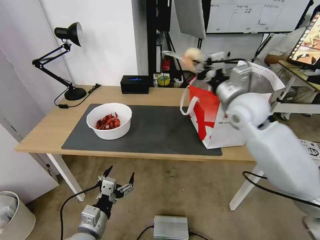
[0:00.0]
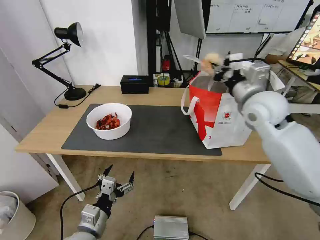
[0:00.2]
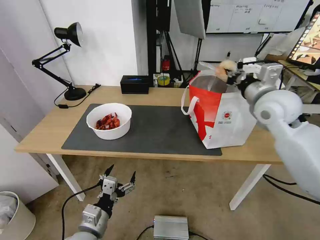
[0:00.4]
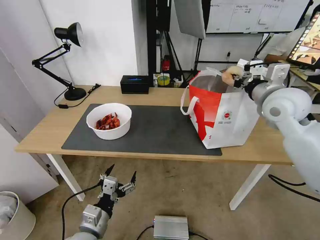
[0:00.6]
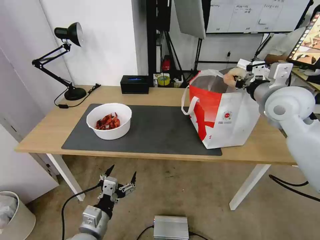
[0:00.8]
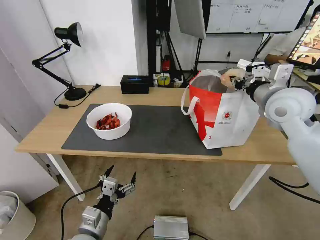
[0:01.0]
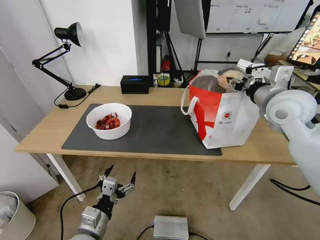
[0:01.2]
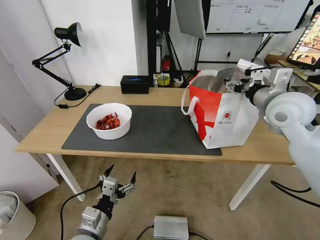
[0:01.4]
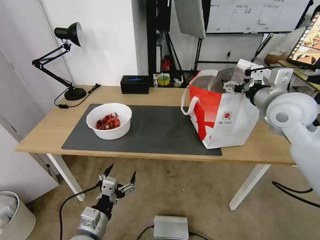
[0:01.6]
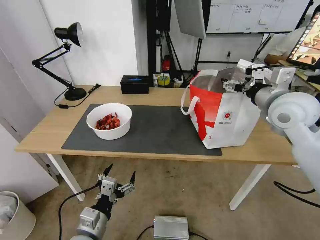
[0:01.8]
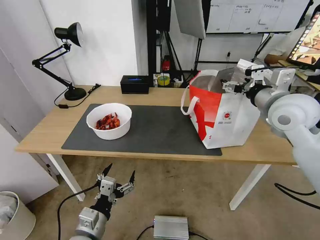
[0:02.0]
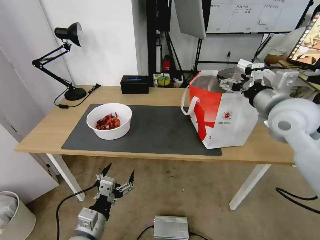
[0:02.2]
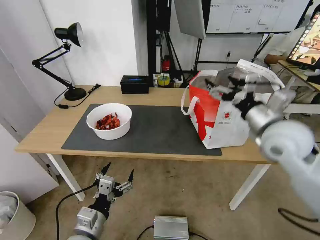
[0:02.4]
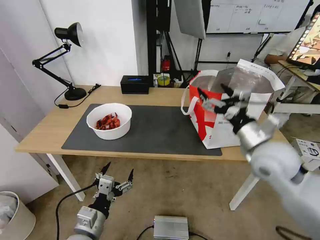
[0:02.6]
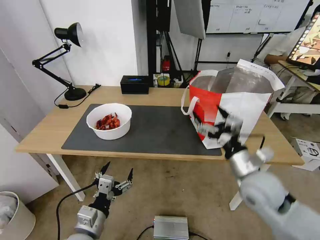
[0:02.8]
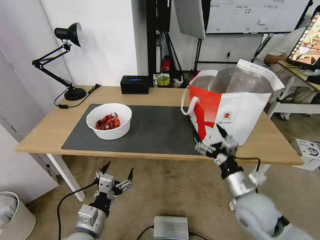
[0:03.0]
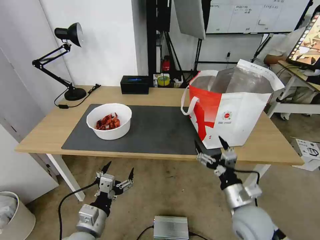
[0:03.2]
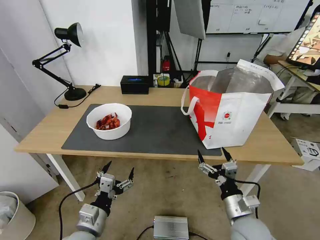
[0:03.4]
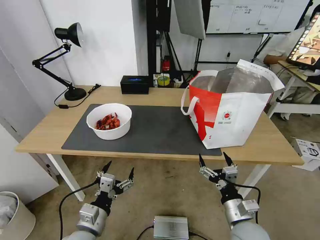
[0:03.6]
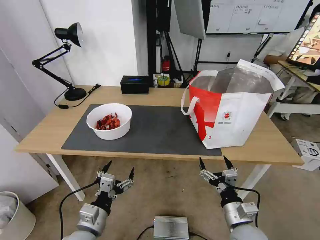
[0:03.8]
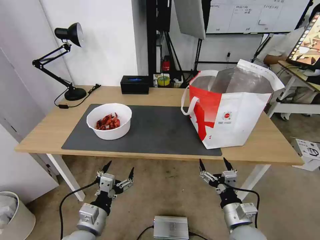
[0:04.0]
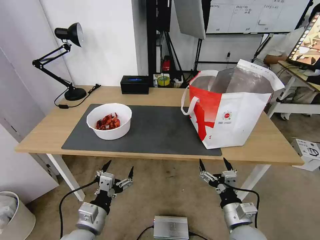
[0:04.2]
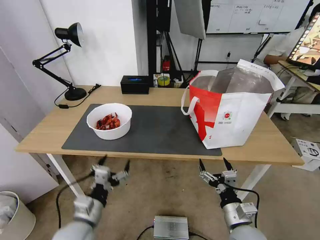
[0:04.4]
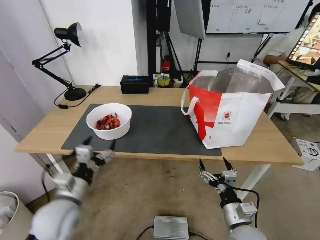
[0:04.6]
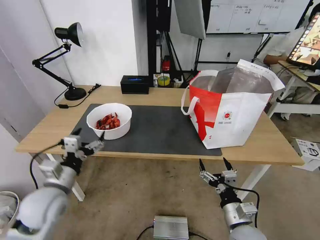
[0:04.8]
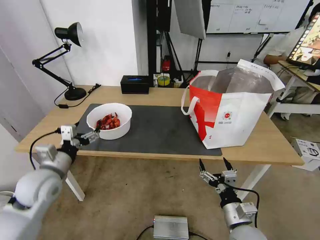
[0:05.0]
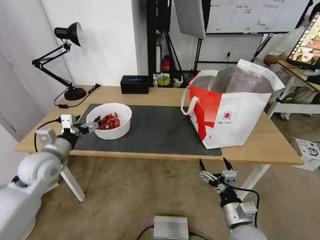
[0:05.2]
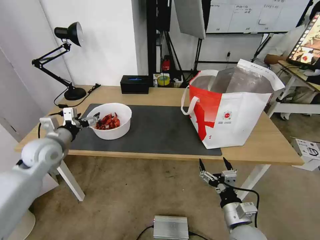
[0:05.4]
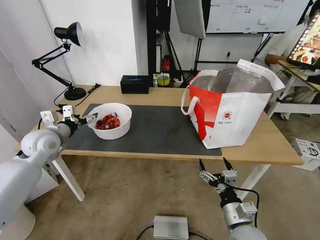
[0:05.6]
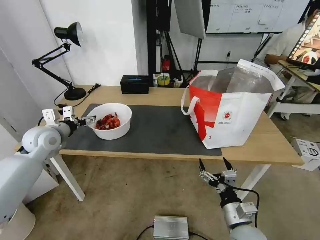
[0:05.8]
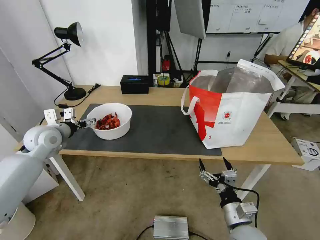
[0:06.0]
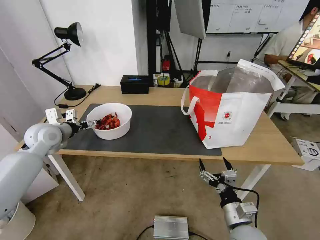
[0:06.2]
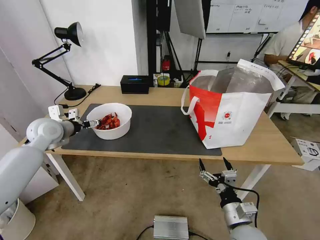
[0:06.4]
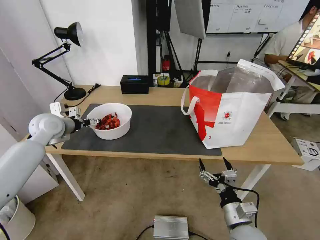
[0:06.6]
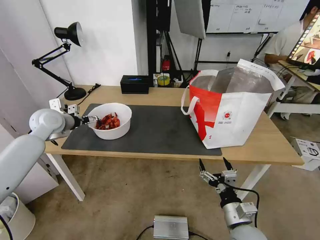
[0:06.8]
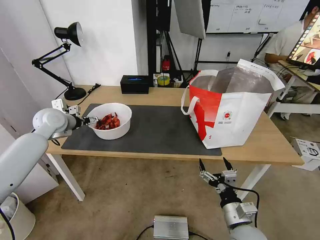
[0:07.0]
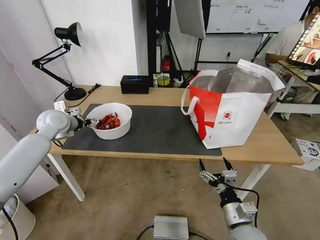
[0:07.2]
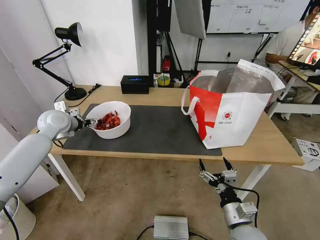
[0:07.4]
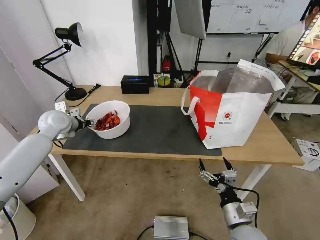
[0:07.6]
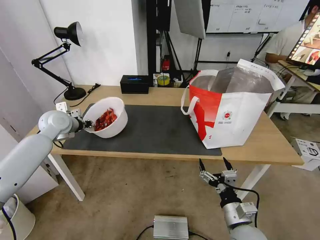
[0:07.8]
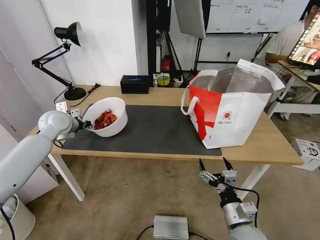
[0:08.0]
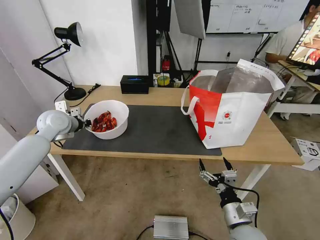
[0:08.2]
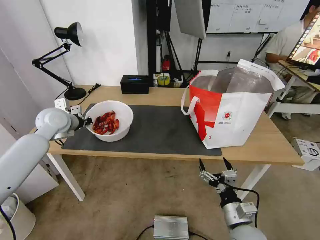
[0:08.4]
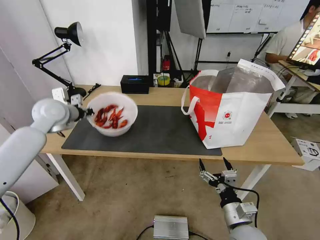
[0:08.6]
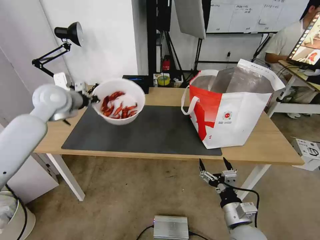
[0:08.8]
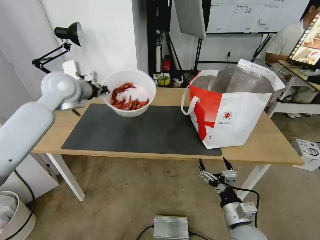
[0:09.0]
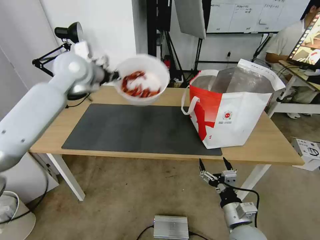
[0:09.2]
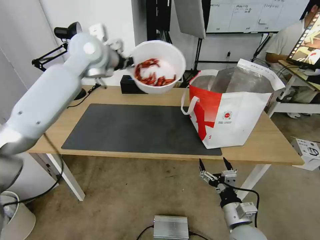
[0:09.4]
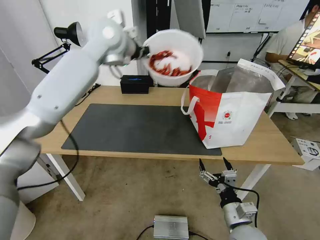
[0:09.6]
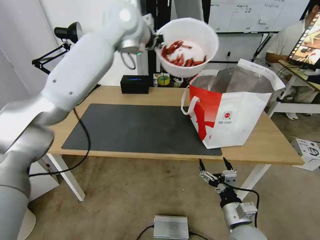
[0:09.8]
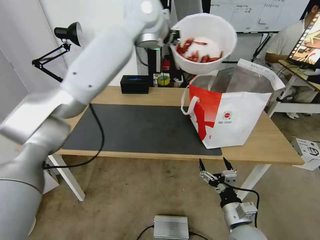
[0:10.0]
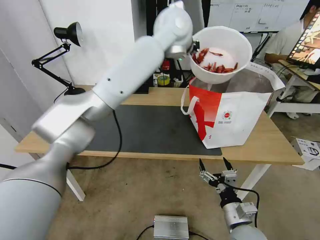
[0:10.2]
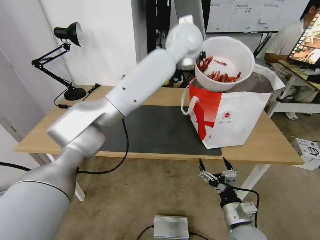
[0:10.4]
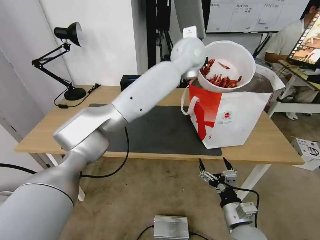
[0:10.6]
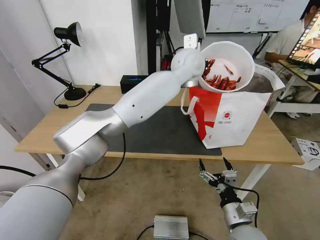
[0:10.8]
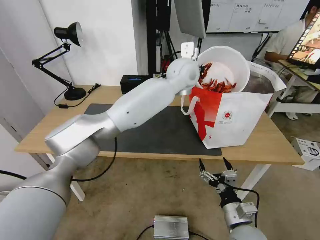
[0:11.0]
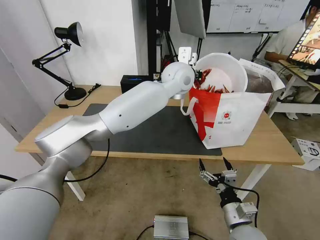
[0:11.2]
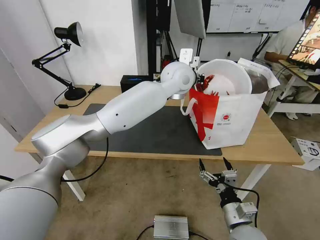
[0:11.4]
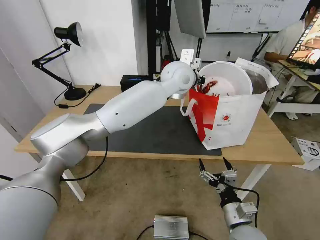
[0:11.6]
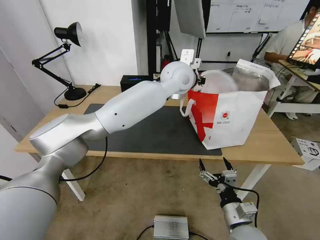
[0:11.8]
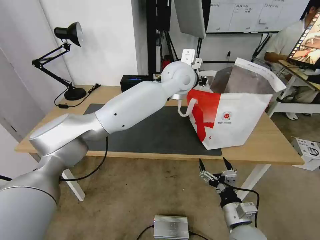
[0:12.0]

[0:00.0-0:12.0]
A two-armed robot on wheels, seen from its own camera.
Task of the whole recording: Pick up the trash from the table and place it into the takeout bag.
0.0 to 1.6 s: The right gripper travels to the right by about 10 cm, and opens.
1.6 to 3.0 s: The right gripper is displaced downward and backward by about 20 cm.
3.0 to 4.4 s: The right gripper moves downward and backward, roughly 15 cm.
4.4 to 6.0 s: The left gripper travels forward, to the left and upward by approximately 30 cm.
6.0 to 7.6 s: The left gripper goes roughly 5 cm forward, and closes.
7.6 to 9.0 s: The left gripper heads upward and to the right, covering about 15 cm, and closes up.
9.0 to 10.4 s: The left gripper travels to the right by approximately 35 cm.
10.4 to 12.0 s: The left gripper shifts approximately 10 cm downward, and opens its fingers.

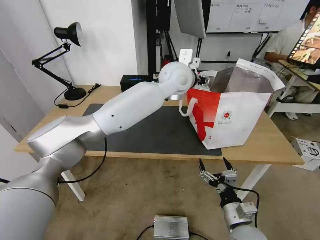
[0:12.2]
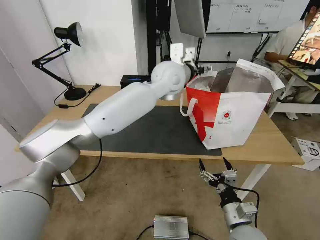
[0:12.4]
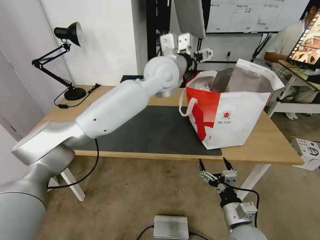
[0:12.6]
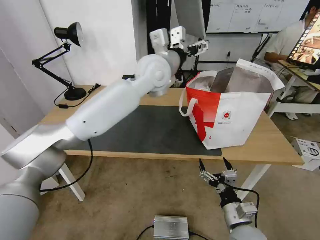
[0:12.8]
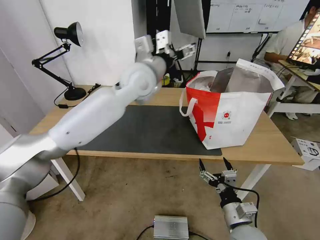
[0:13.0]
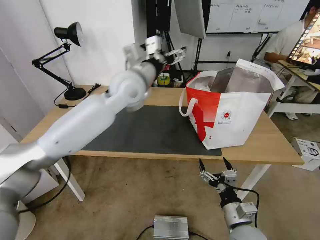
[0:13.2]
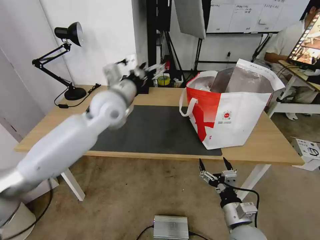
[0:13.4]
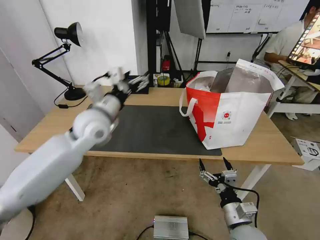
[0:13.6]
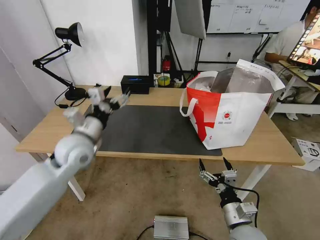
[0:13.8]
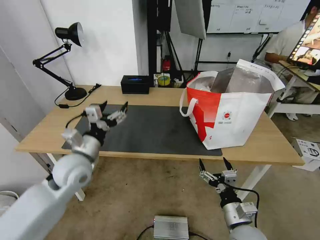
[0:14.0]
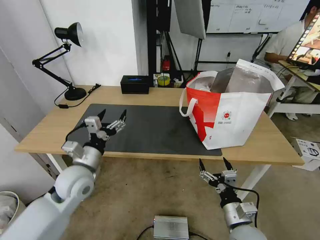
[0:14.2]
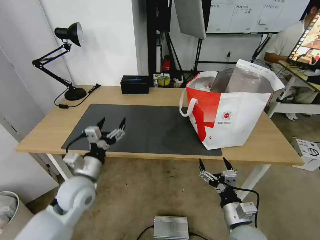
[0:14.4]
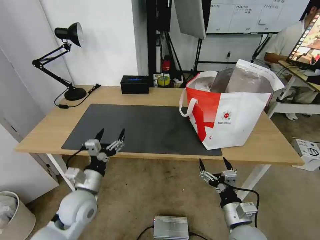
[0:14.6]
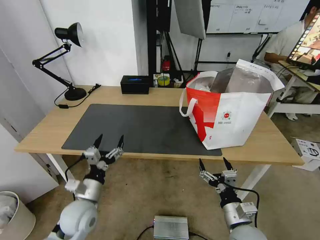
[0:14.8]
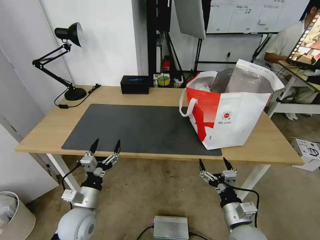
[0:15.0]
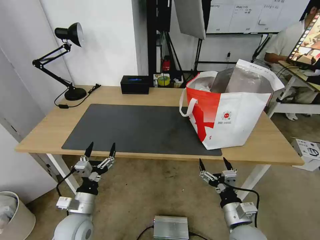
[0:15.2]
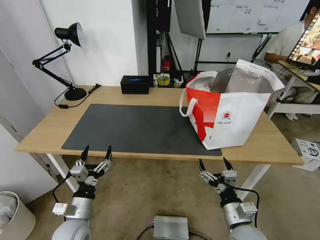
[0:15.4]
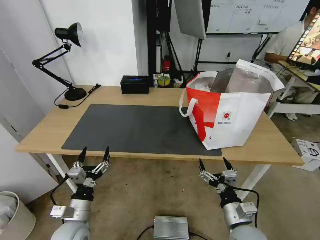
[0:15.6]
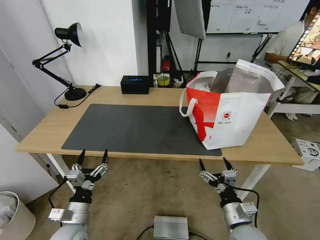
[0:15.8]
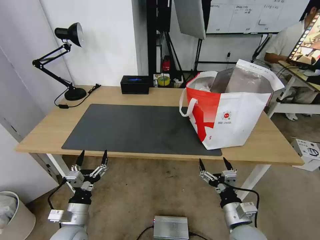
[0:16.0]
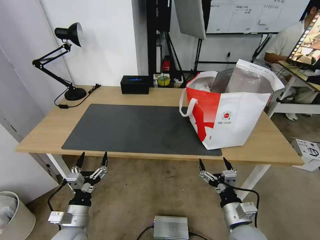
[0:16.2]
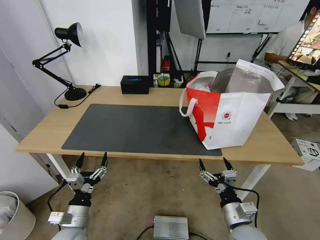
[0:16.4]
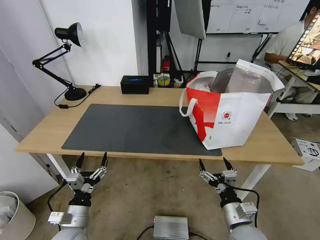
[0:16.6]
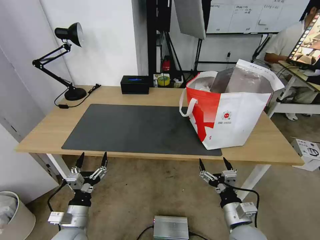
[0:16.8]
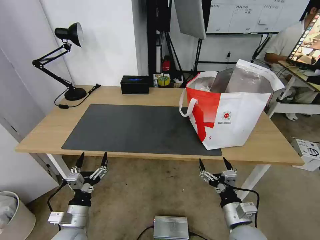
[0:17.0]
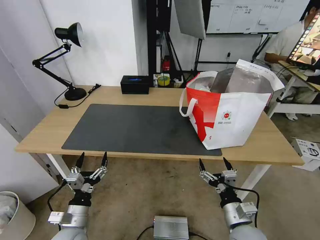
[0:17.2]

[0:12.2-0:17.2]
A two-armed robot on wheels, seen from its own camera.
Task of the whole recording: Pick up the trash from the table and place it into the takeout bag.
12.2 to 13.8 s: The left gripper travels to the left, backward and downward by approximately 35 cm.
13.8 to 15.6 s: The left gripper heads downward and backward, covering about 25 cm.
15.6 to 17.2 s: The grippers stay close to where they were, moving slightly.

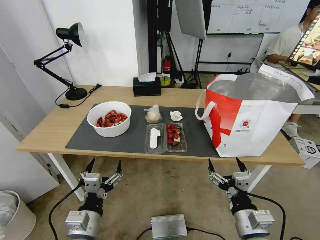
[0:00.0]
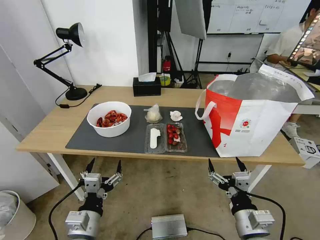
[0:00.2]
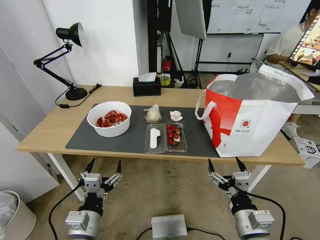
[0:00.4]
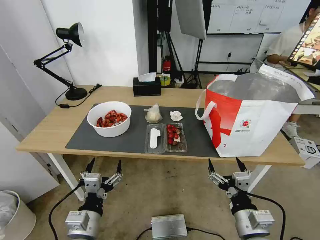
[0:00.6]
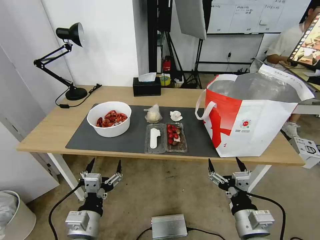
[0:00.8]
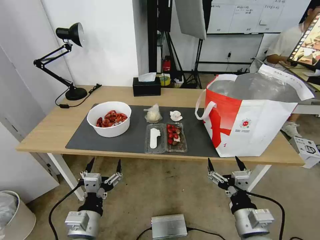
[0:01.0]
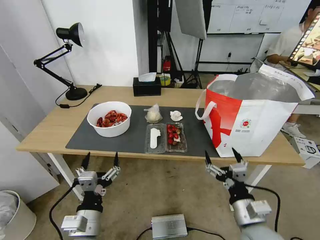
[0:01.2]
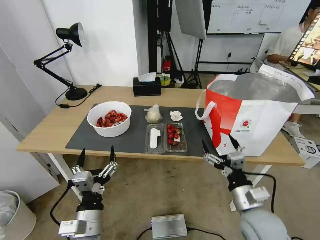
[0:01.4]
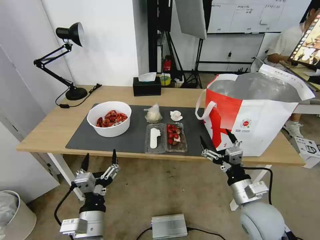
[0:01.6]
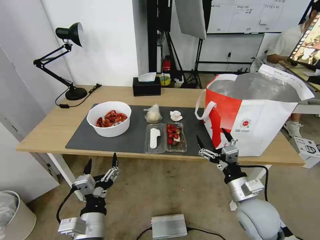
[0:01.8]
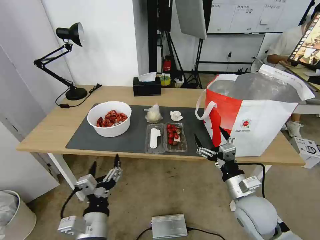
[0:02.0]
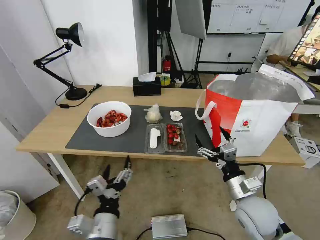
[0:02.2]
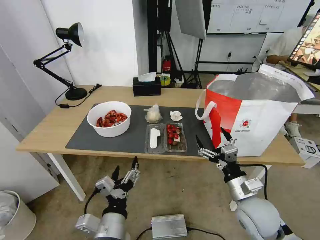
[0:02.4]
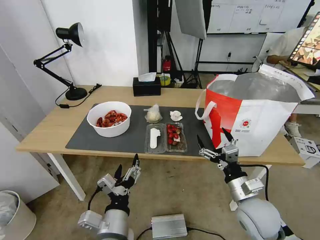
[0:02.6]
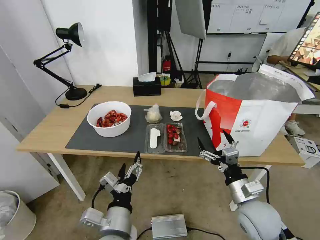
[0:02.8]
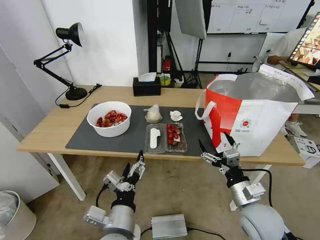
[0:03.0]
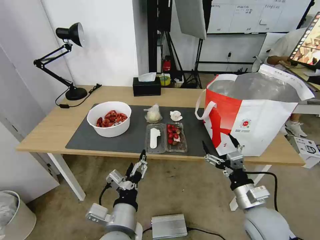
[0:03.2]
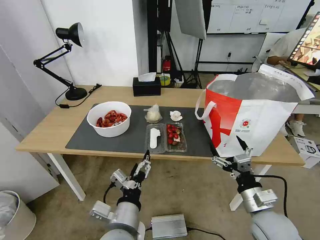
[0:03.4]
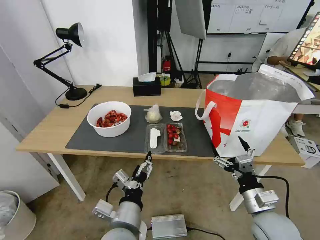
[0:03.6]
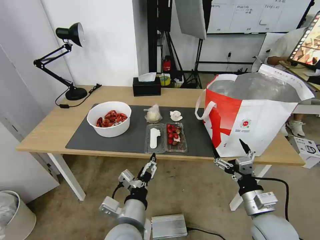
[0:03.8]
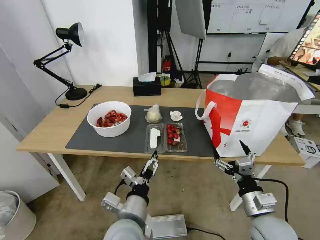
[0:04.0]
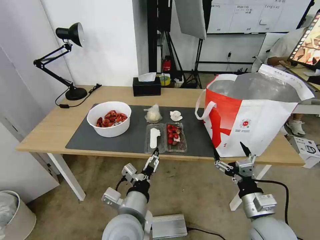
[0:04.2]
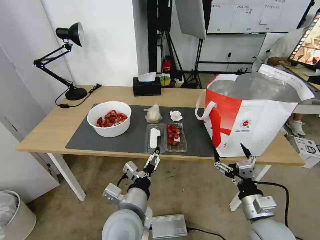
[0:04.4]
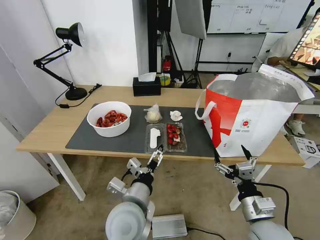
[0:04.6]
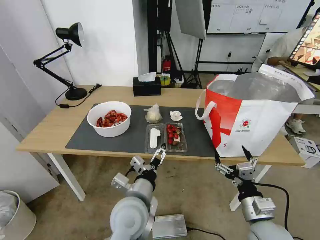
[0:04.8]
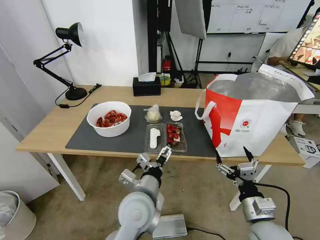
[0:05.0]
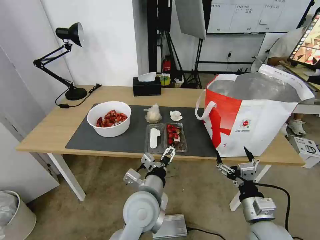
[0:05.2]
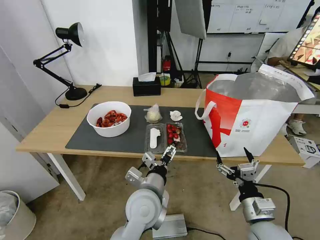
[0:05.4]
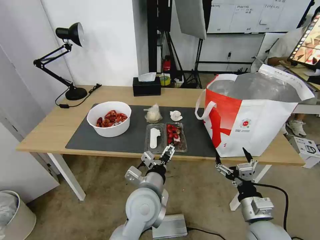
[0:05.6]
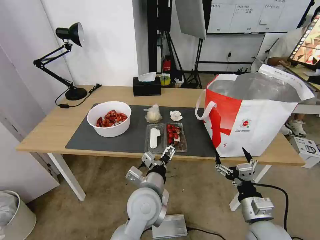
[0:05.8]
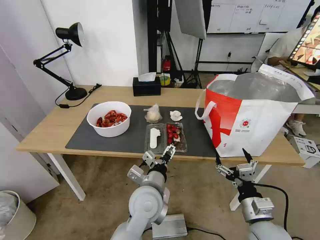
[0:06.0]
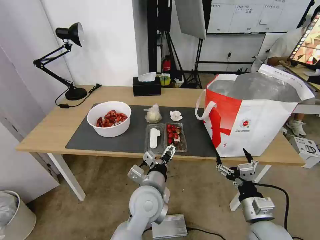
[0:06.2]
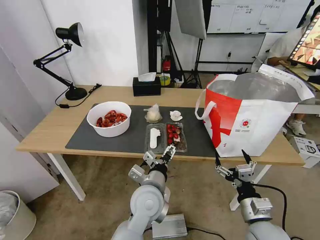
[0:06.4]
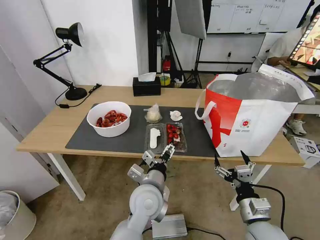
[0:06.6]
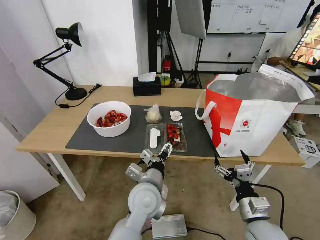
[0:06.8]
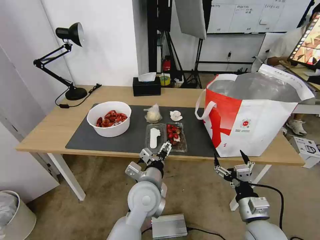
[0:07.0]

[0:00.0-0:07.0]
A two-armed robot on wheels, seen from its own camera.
Task of the whole recording: Pick up the trash from the table and place it into the takeout bag.
1.4 to 2.8 s: The left gripper is displaced to the right by roughly 5 cm.
2.8 to 4.2 s: The left gripper moves roughly 5 cm.
4.2 to 5.6 s: The left gripper is displaced forward by roughly 5 cm.
5.6 to 7.0 s: The grippers move only a little.
